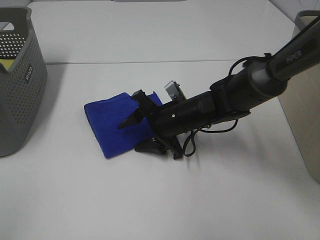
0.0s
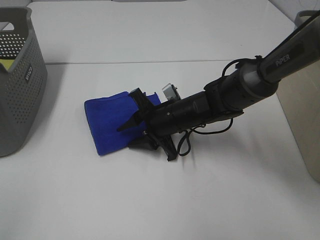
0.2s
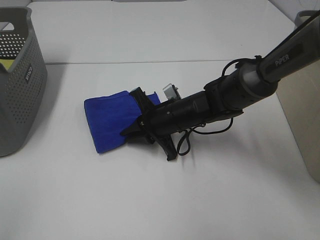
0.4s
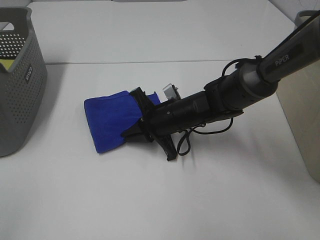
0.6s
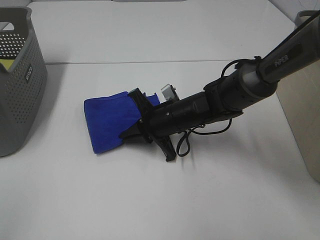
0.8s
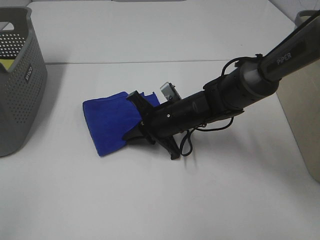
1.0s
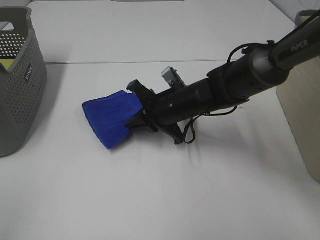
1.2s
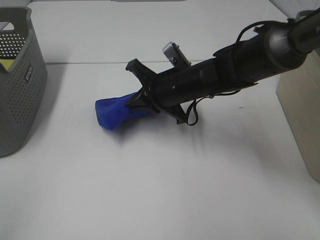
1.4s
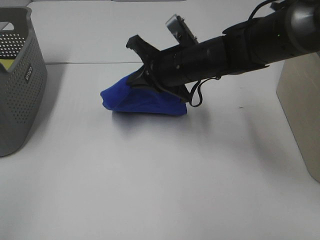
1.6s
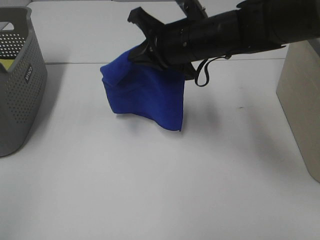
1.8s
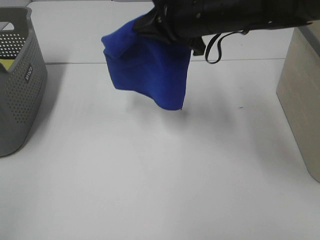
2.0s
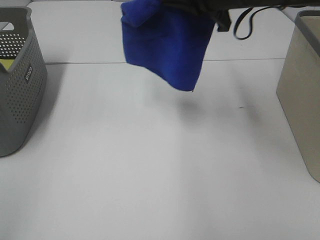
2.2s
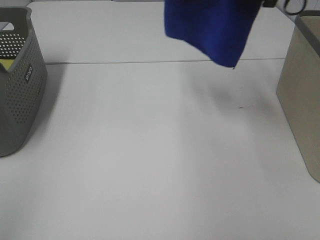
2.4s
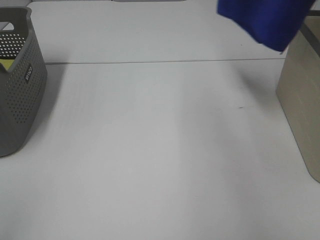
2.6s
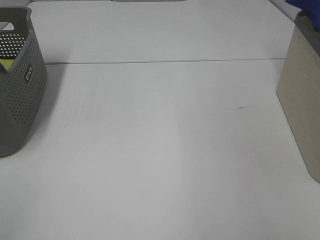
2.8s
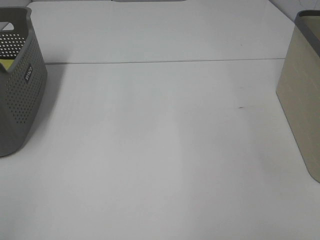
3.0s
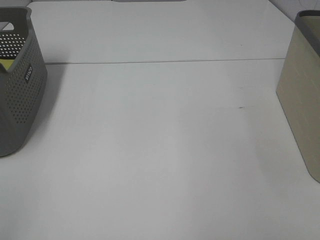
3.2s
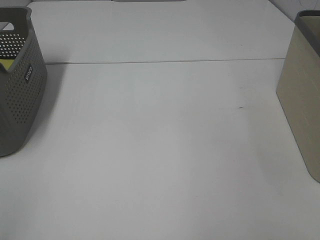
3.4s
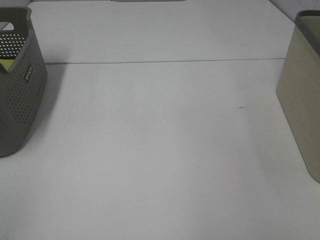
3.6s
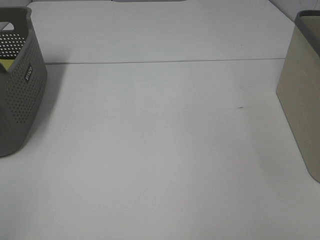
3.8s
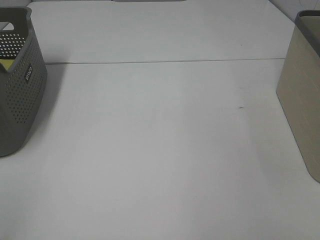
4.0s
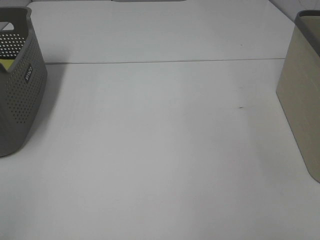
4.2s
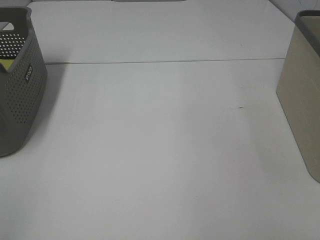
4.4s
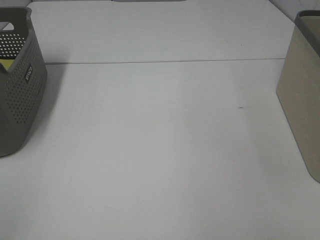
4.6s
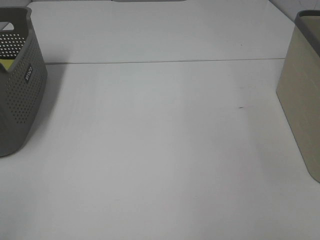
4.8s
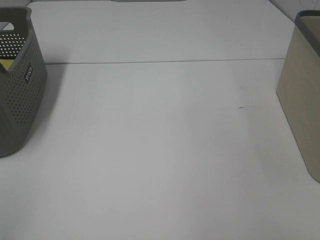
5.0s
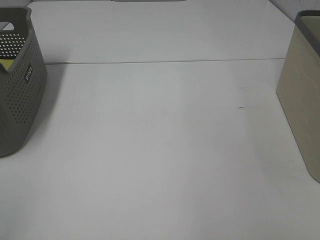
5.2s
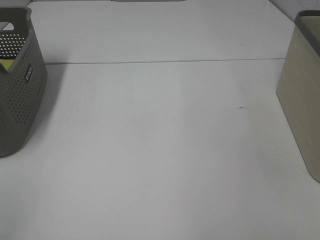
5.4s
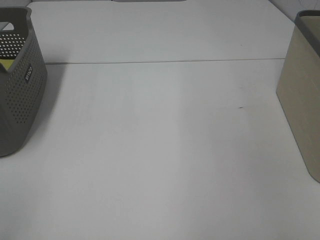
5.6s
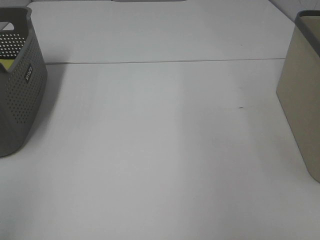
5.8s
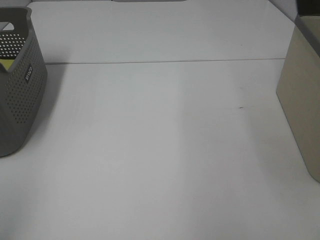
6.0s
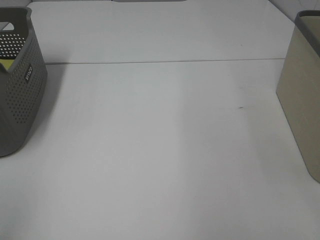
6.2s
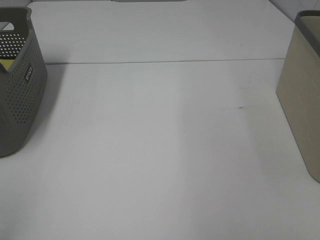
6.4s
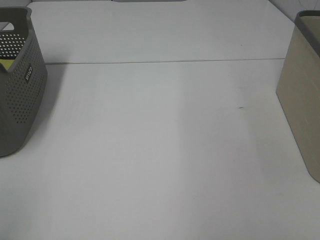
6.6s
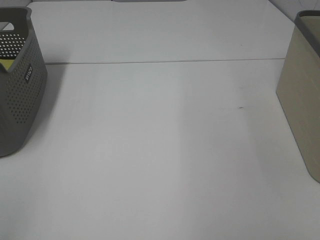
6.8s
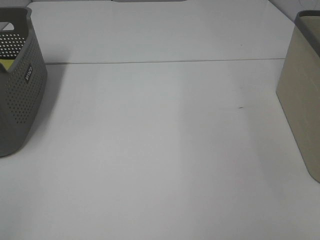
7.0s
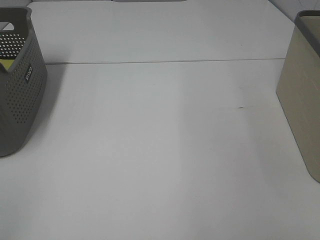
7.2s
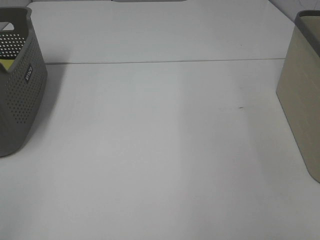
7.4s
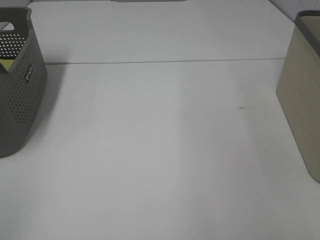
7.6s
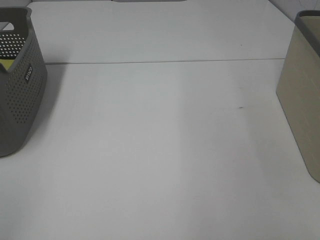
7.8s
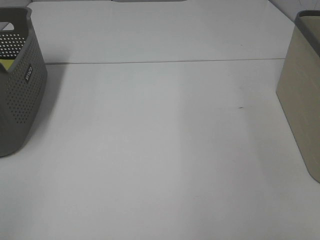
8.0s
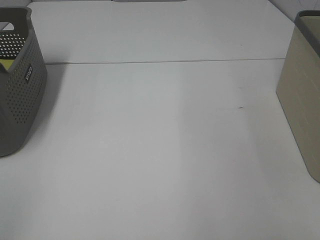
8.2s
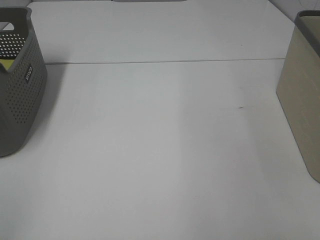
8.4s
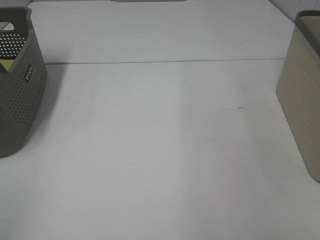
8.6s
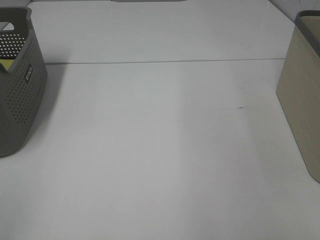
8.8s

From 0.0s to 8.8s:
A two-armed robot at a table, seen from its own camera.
Step, from 1.0s to 5.2s: Right hand: place the blue towel in right basket.
From 0.0s to 1.4s: The right gripper heads upward, covering about 10 cm, and closes up.
From 1.4s to 3.0s: The right gripper is displaced to the right and upward by about 40 cm.
From 7.4s to 8.8s: The two grippers keep their place.

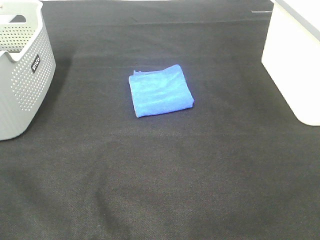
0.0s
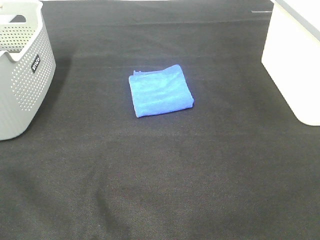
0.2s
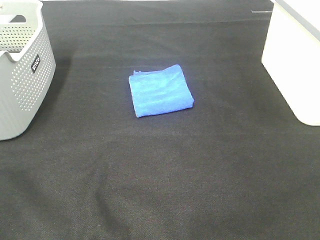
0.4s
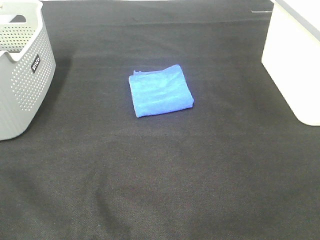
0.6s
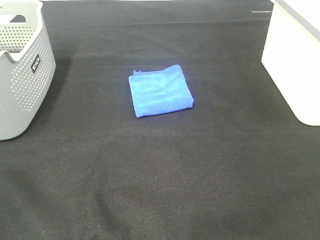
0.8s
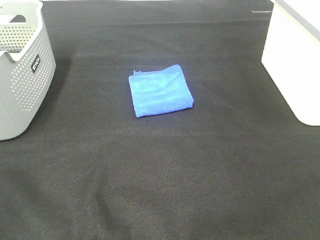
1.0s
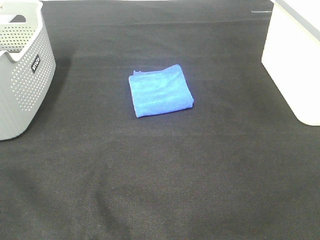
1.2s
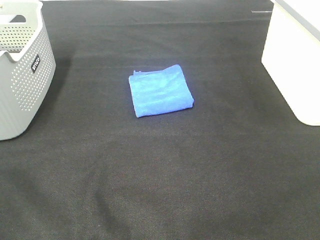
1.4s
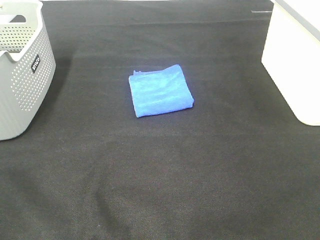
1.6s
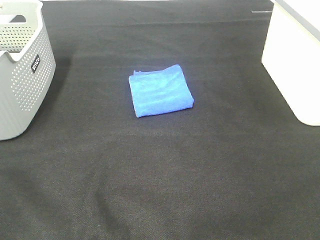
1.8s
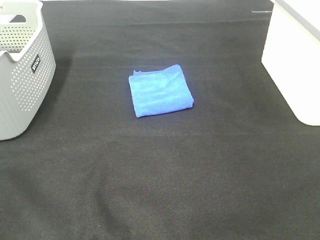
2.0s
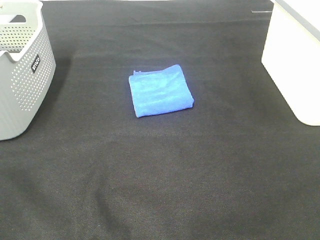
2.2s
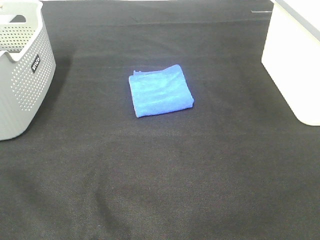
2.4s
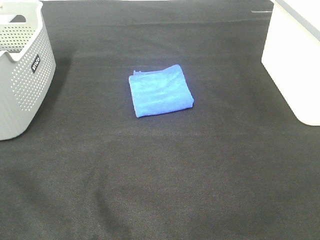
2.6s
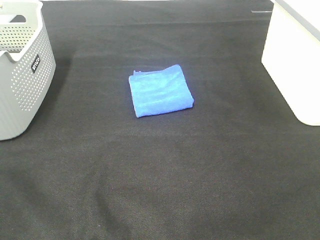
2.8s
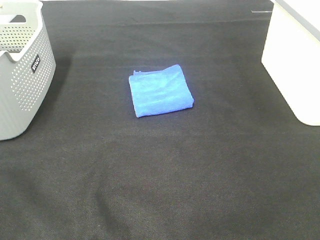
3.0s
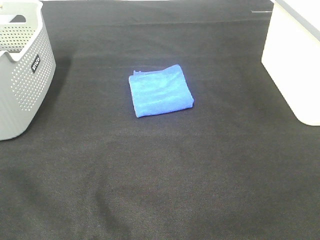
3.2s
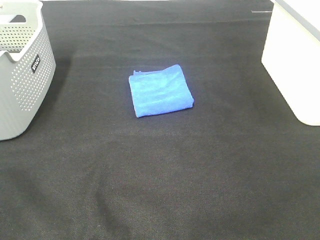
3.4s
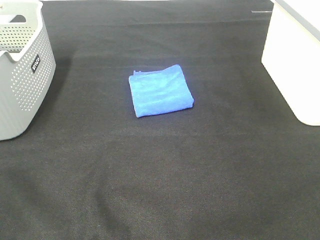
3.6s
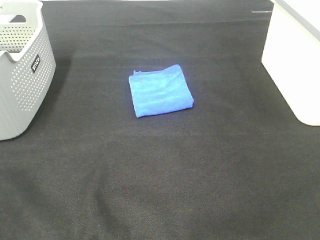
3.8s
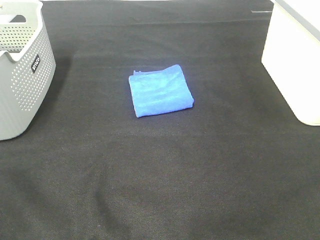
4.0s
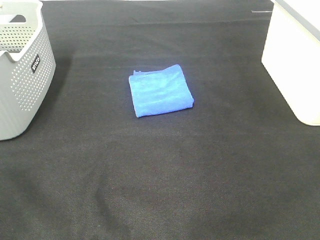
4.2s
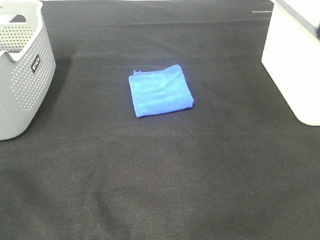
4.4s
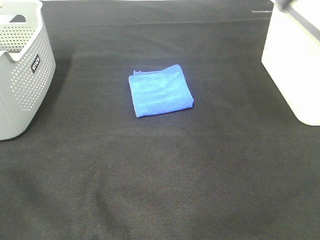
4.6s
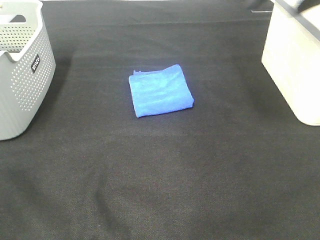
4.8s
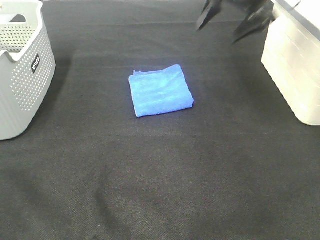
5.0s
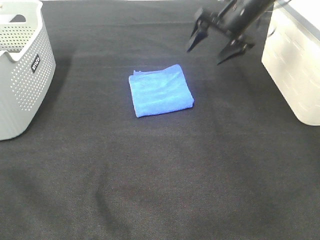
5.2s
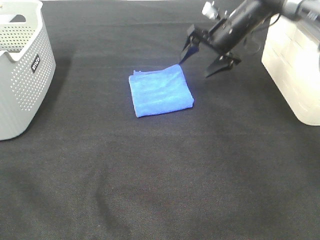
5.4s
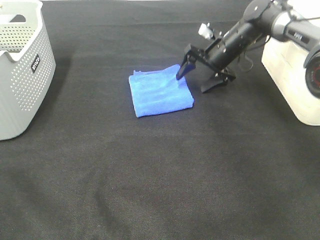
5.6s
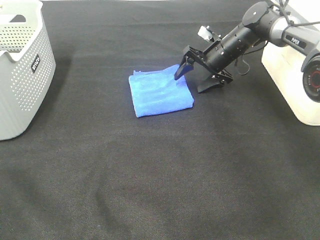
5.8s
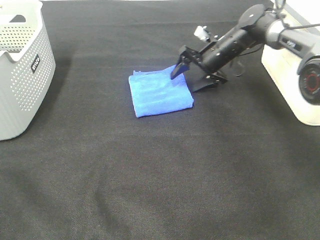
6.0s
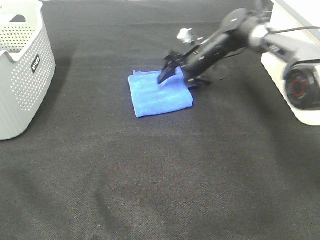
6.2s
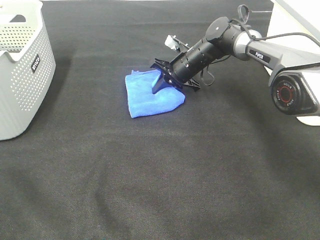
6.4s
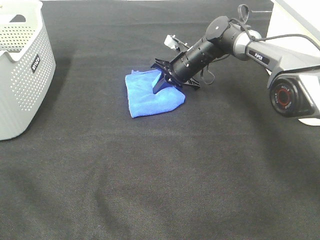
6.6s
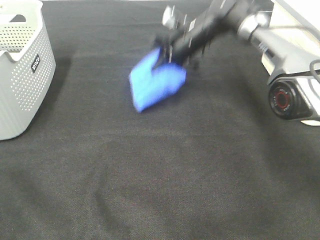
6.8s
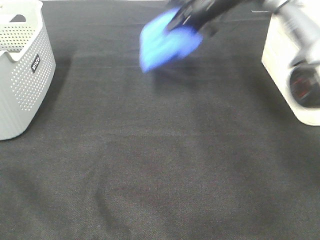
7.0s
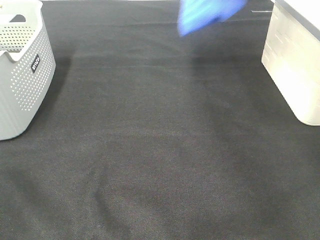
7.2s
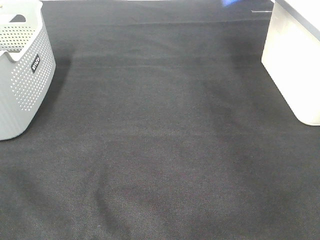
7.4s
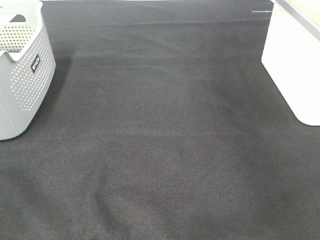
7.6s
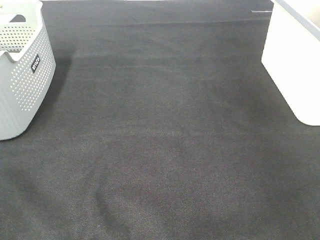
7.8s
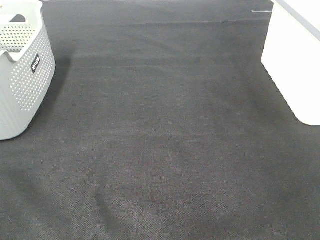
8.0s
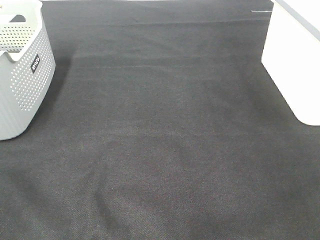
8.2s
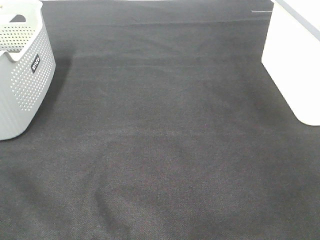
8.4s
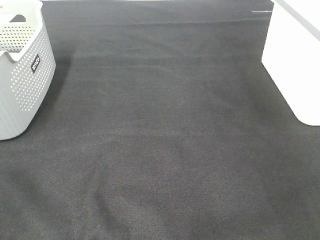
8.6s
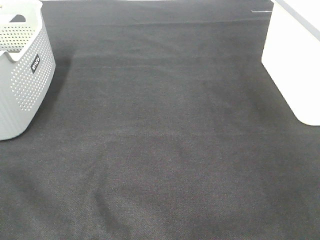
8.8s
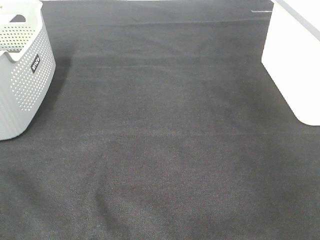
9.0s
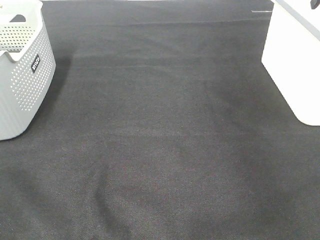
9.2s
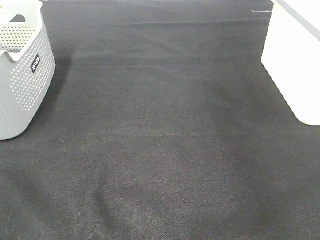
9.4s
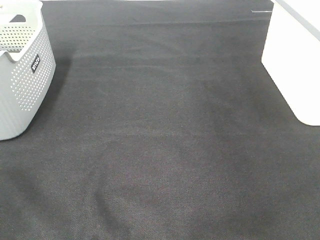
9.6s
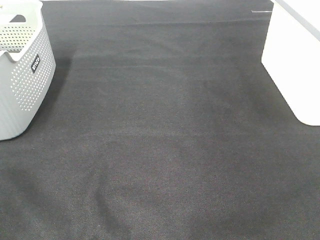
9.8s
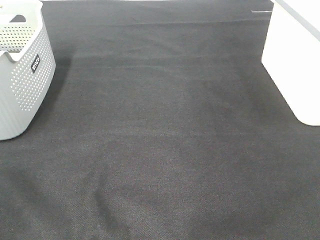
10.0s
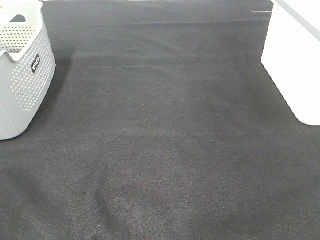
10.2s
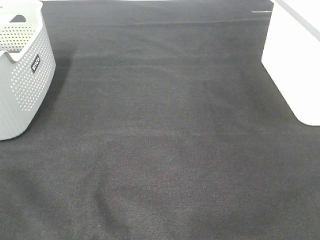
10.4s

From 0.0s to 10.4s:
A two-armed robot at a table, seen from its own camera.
Step, from 0.0s to 6.4s: Right hand: grab the folded blue towel.
Step, from 6.6s to 8.4s: Right hand: place the blue towel in right basket.
From 0.0s to 3.0s: Neither gripper changes place.
From 4.4s to 6.0s: The right gripper shifts approximately 35 cm downward, forward and to the left.
From 6.0s to 7.4s: The right gripper heads upward and to the right, covering approximately 35 cm, and closes up.
From 7.4s to 9.0s: The right gripper is displaced to the right and downward by some 10 cm, and opens.

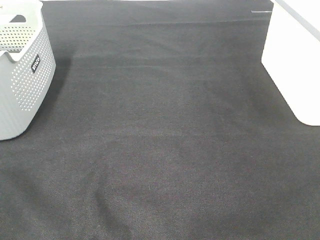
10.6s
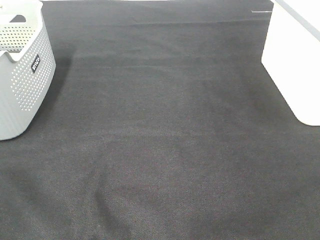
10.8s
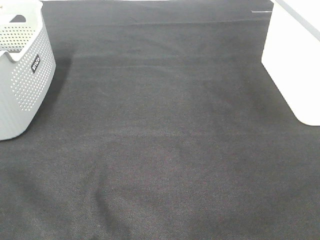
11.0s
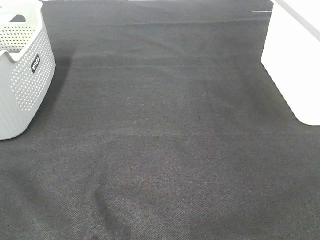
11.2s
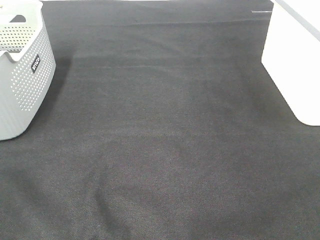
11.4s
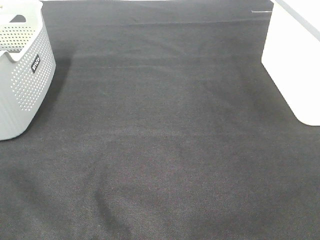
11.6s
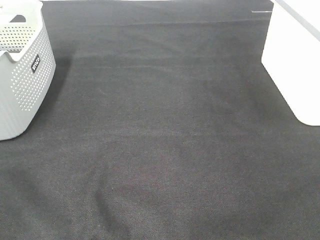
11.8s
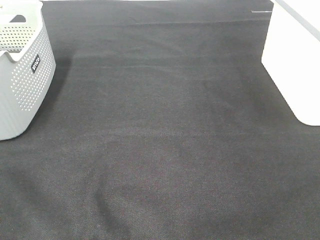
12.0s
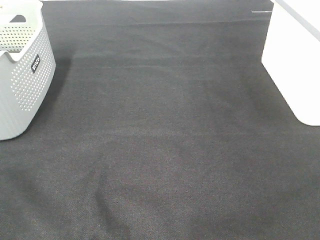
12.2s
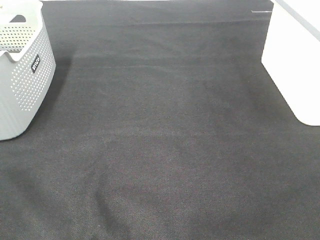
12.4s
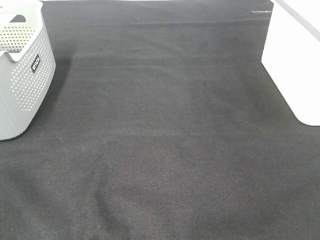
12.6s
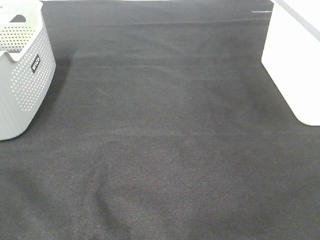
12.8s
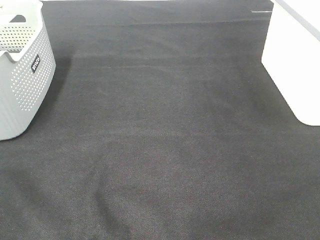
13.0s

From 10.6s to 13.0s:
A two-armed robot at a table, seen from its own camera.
From 11.8s to 13.0s: The two grippers keep their place.

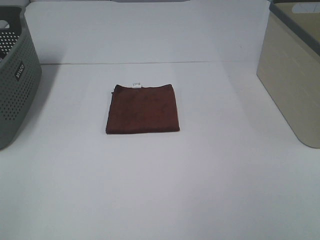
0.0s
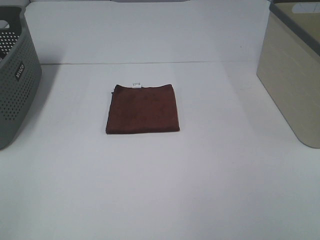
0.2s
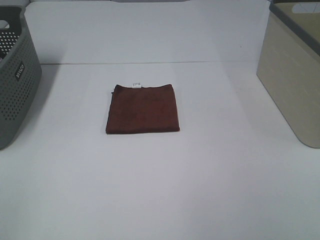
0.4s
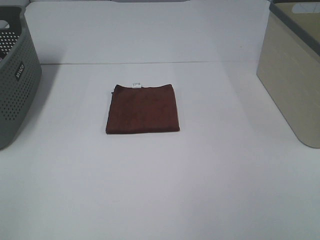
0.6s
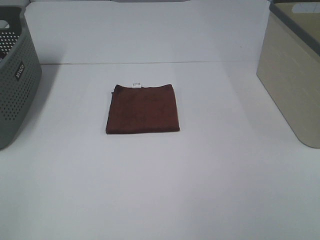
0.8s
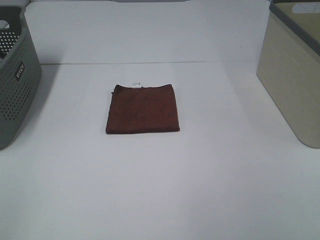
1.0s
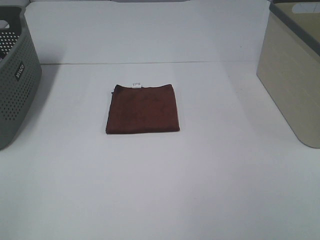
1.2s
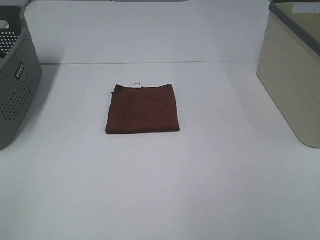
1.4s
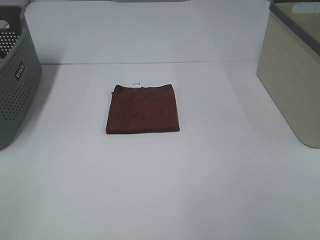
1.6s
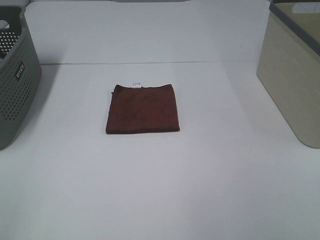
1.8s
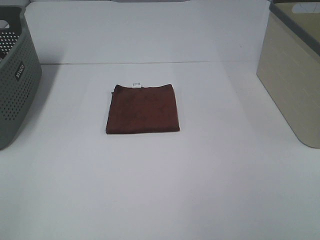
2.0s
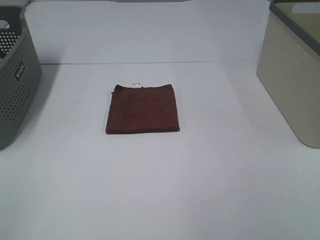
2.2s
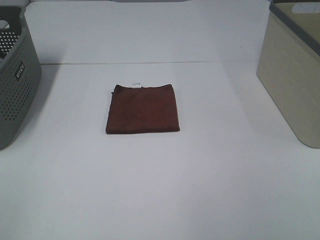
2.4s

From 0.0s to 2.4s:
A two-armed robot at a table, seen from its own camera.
From 0.0s to 2.4s: Both grippers stay about where they are.
